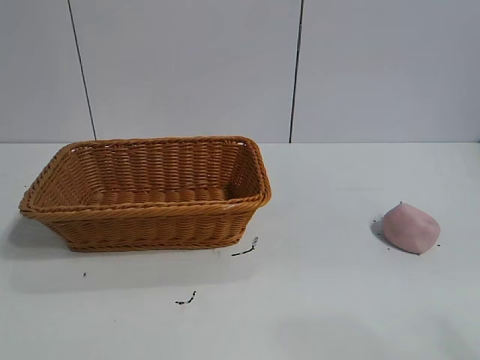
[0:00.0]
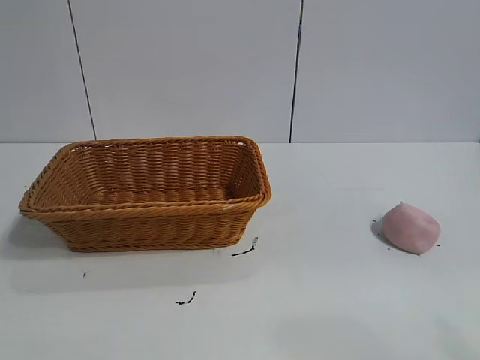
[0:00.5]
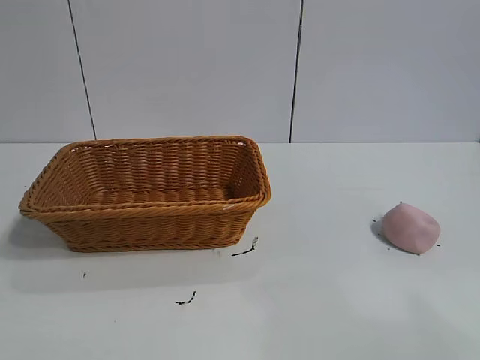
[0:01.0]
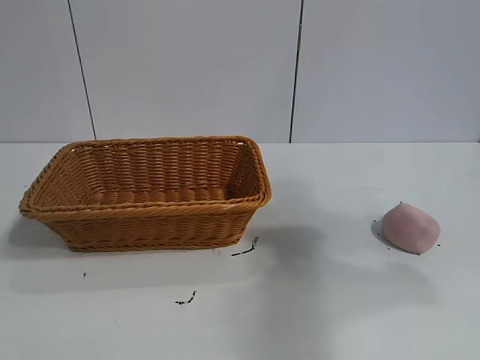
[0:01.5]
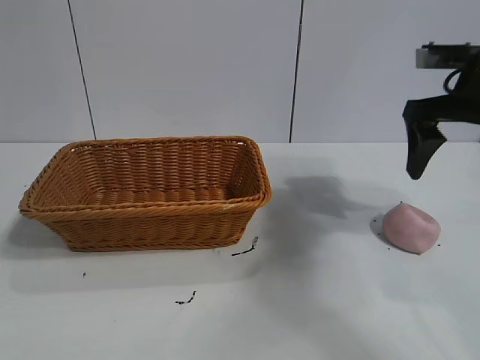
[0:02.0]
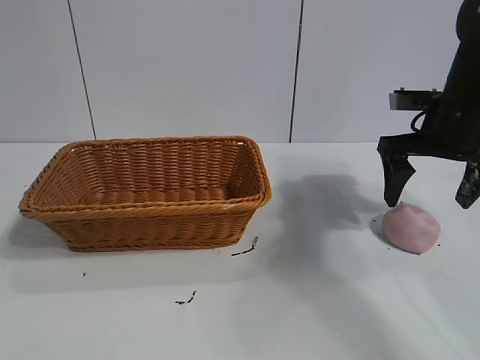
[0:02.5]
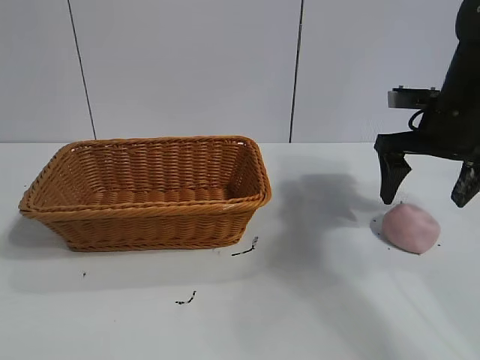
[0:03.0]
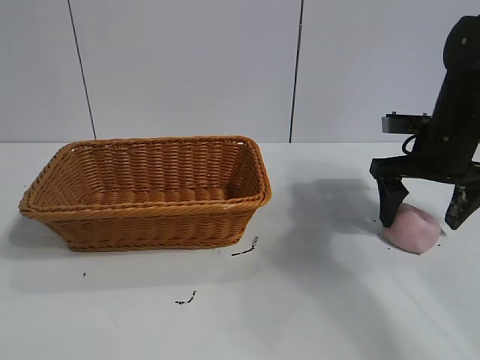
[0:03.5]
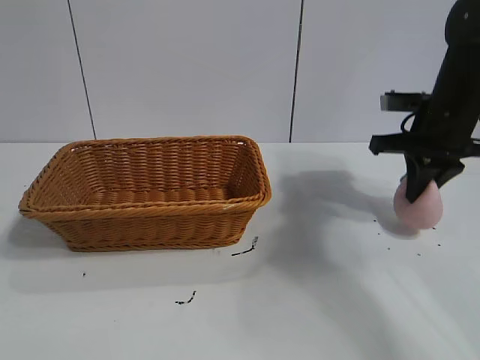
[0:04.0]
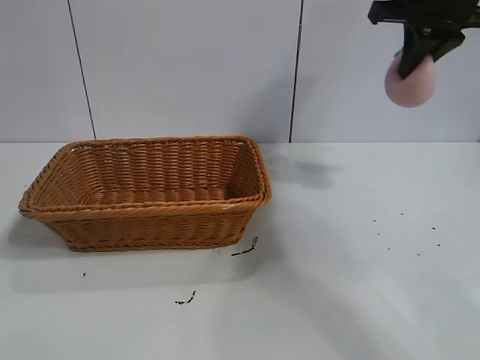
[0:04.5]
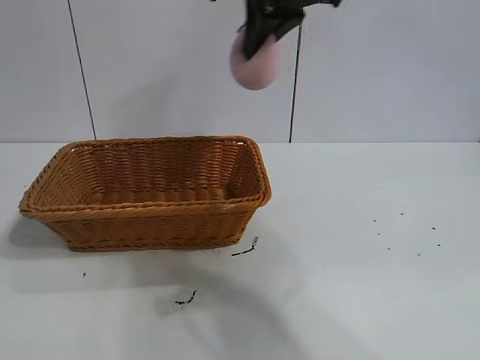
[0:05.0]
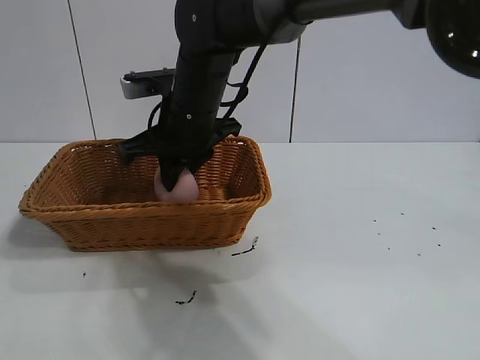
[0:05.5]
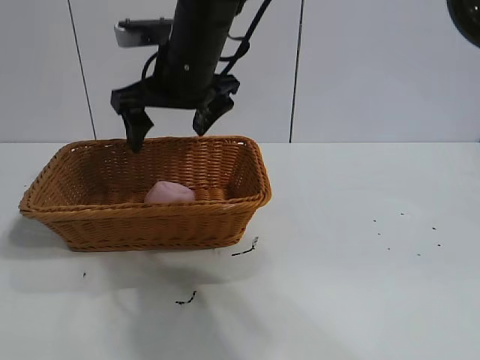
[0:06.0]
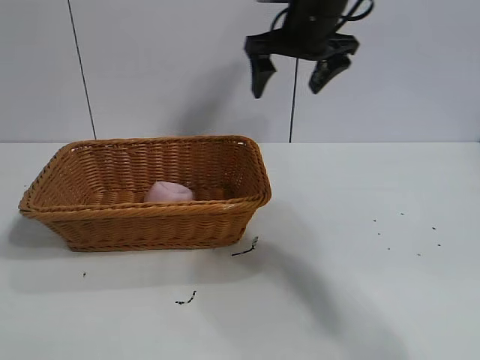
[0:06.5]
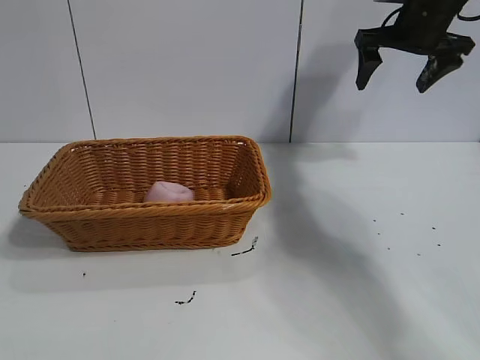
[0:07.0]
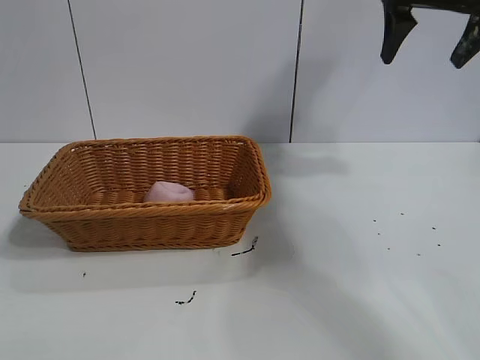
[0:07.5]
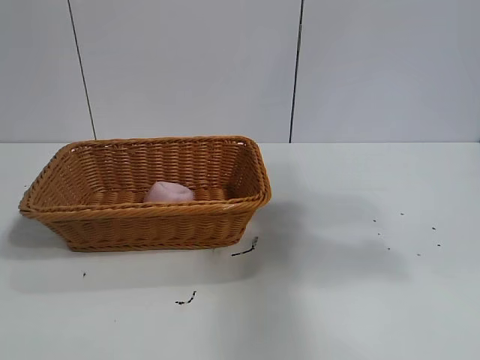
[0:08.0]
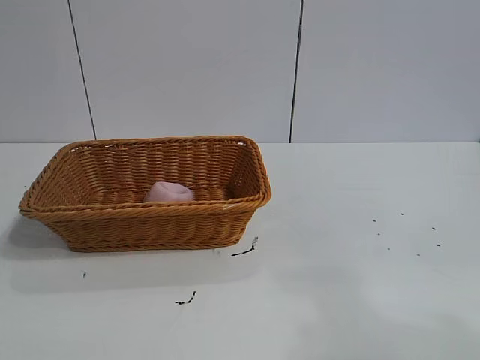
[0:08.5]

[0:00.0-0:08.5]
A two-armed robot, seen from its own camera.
Task of the whole recording: pick up the peach and put it into the basket.
Step, 0:01.0 to 0:03.5: Grasp the peach with right gripper.
Step, 0:04.0 to 0:05.5: Place the peach in the basket with right gripper.

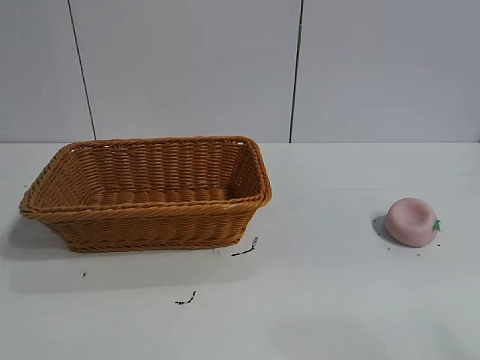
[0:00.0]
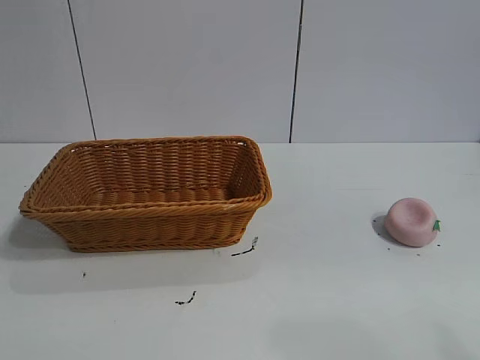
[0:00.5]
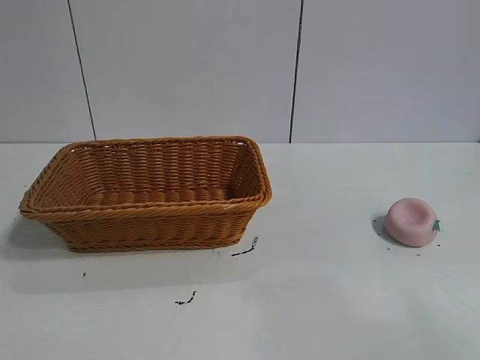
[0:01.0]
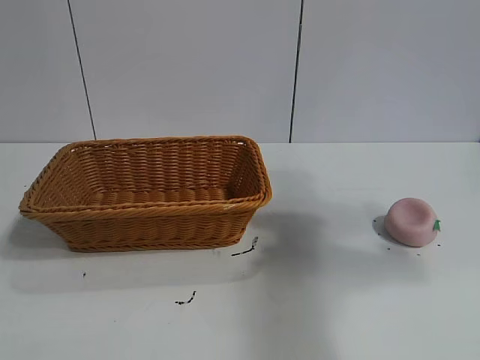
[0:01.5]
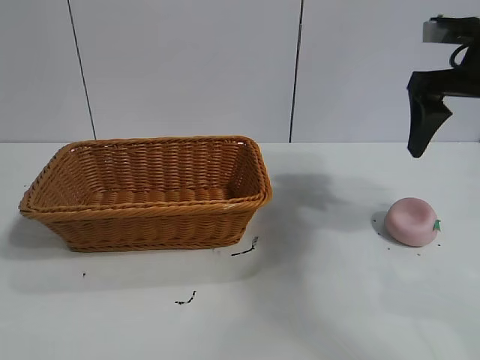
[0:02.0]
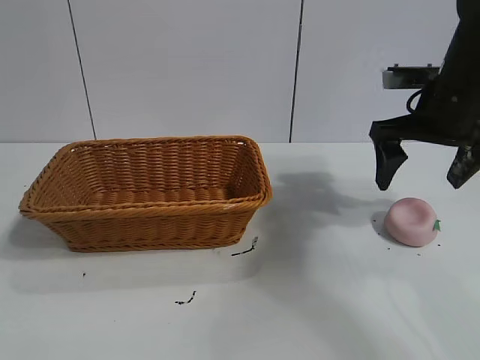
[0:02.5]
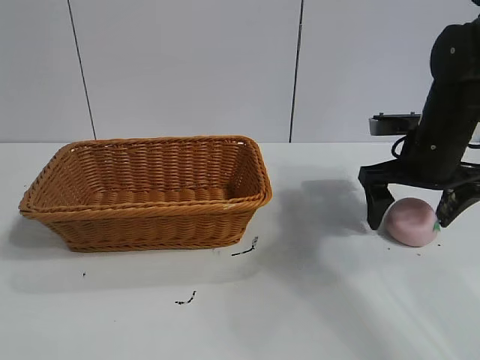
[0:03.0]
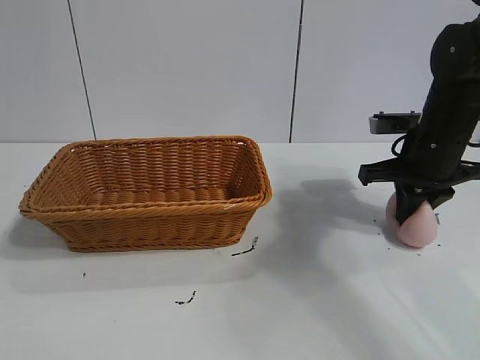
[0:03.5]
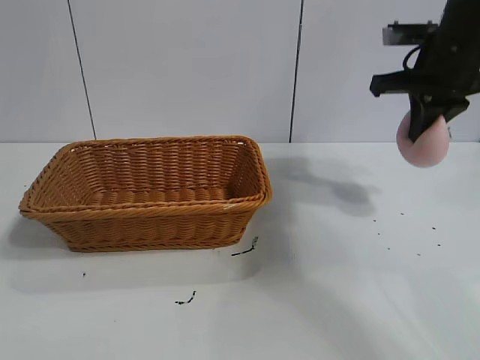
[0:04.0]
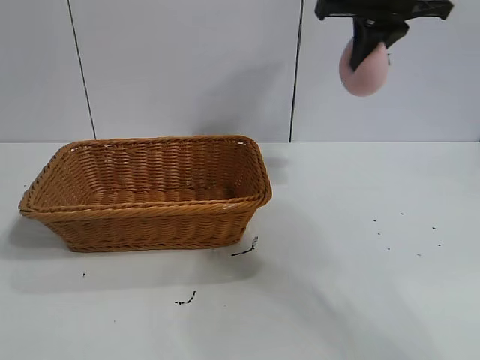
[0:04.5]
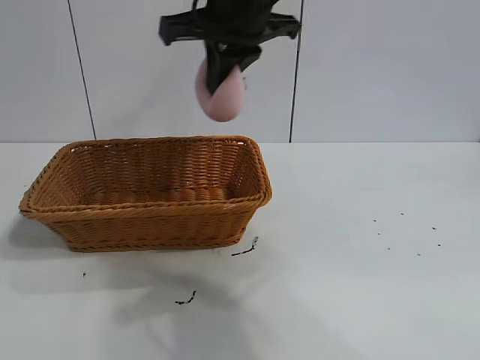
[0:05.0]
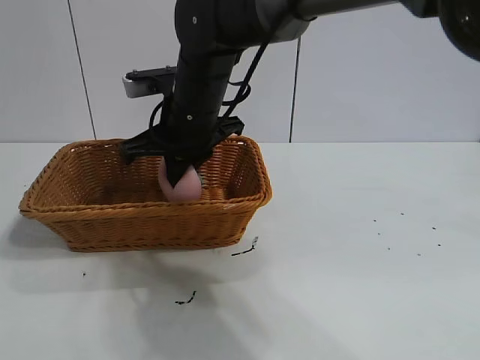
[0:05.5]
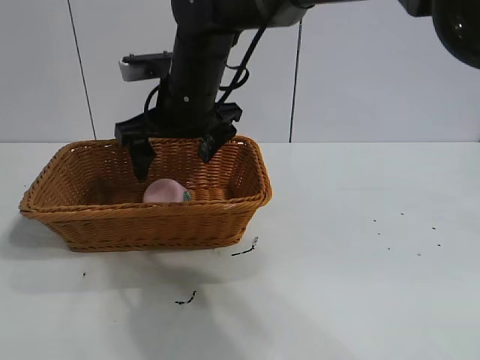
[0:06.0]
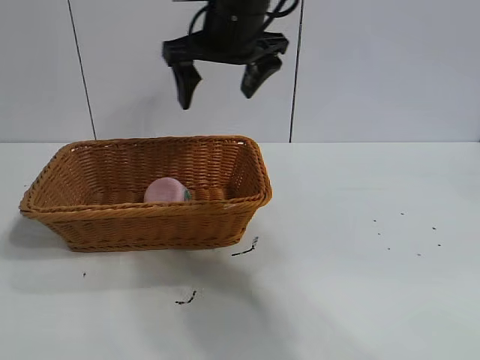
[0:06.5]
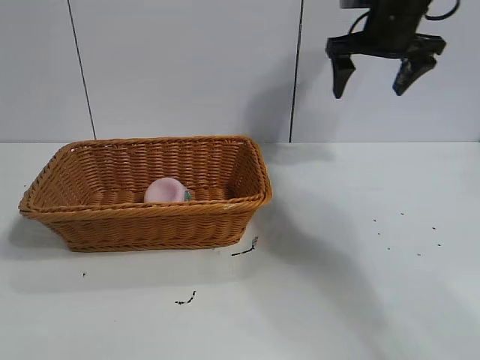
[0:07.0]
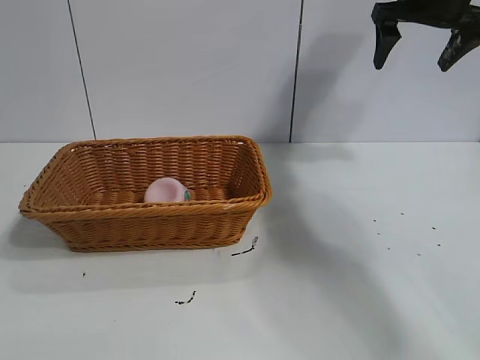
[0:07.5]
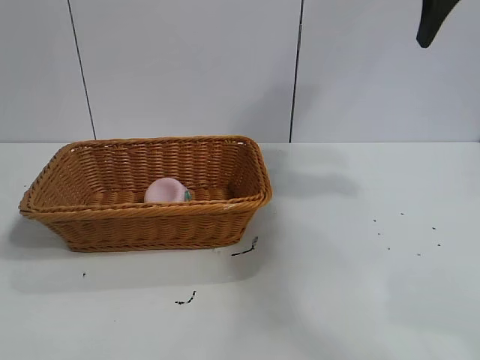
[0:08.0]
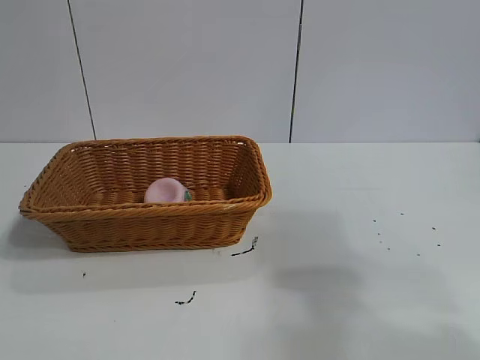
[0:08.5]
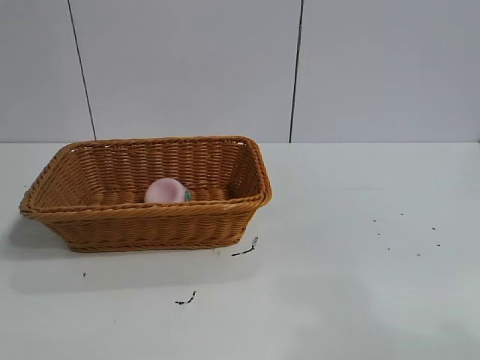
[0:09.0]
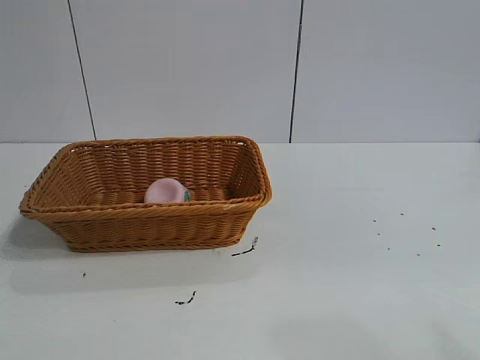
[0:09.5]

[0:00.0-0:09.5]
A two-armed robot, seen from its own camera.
Task of the whole recording: pick up the peach and put it into the basket.
Step, 0:01.0 to 0:03.5: Grasp the peach with right gripper.
Step, 0:04.0 to 0:05.5: Place the peach in the basket with right gripper.

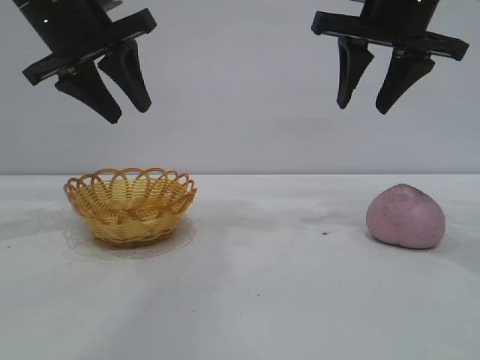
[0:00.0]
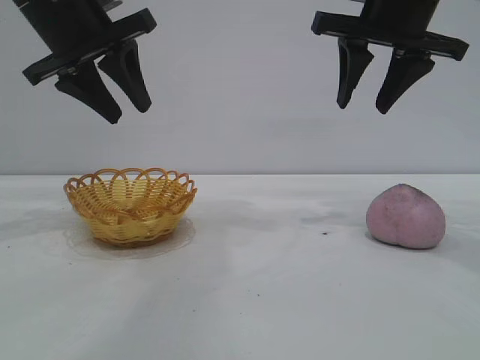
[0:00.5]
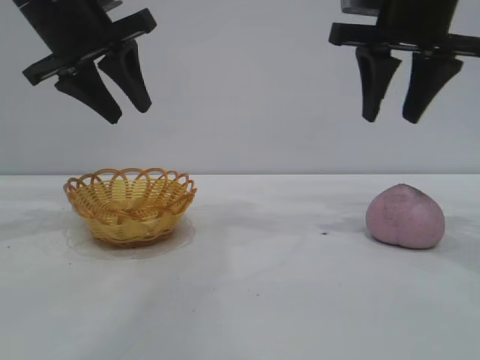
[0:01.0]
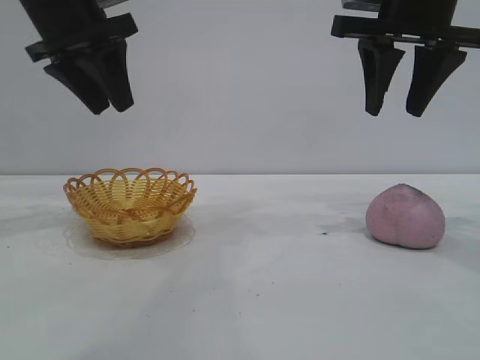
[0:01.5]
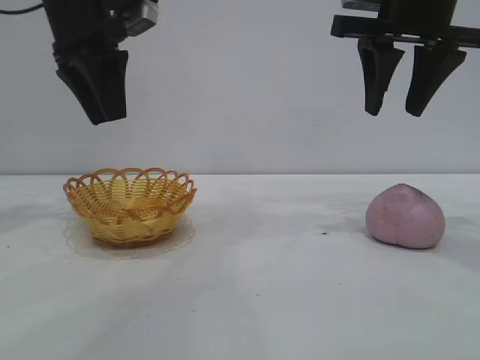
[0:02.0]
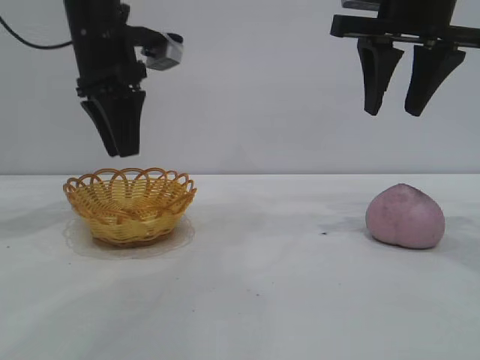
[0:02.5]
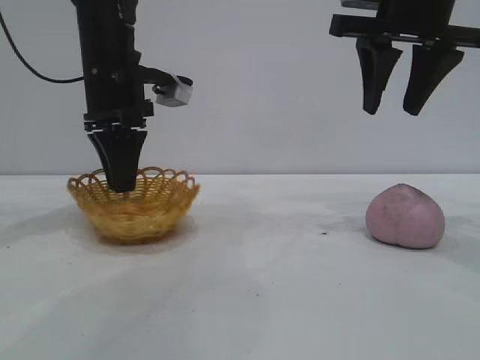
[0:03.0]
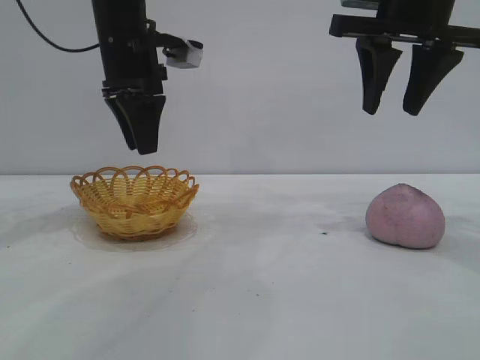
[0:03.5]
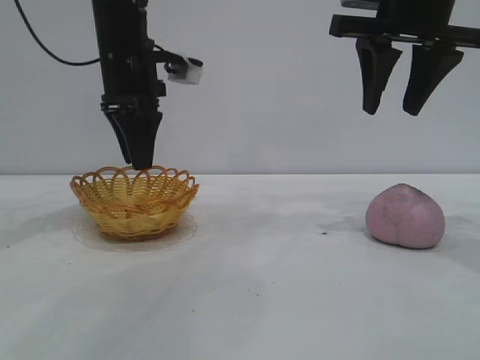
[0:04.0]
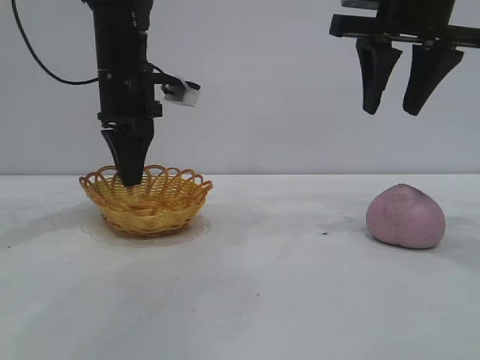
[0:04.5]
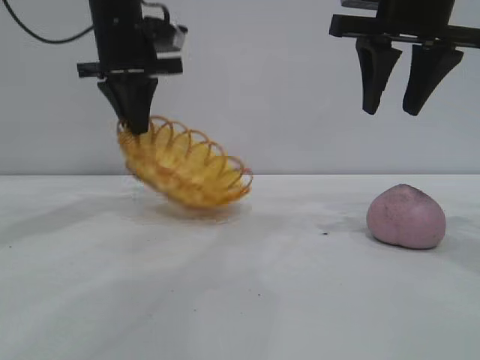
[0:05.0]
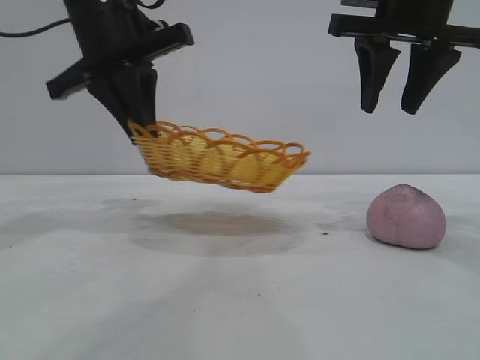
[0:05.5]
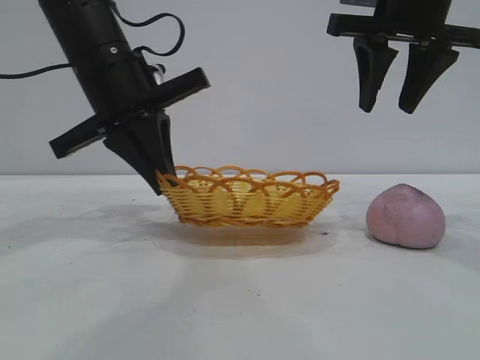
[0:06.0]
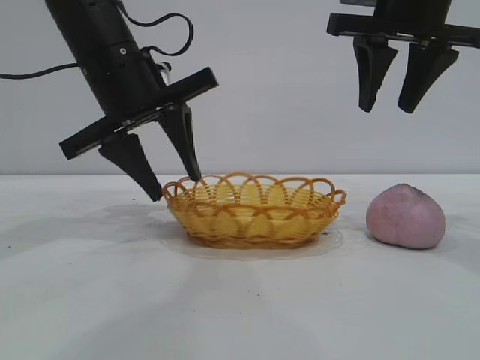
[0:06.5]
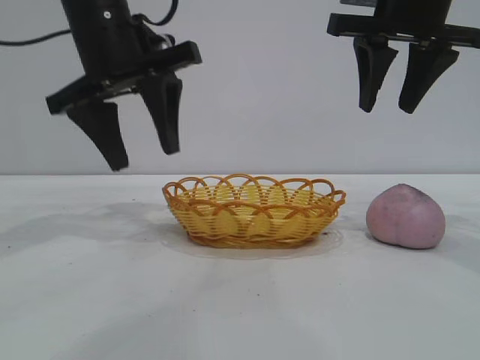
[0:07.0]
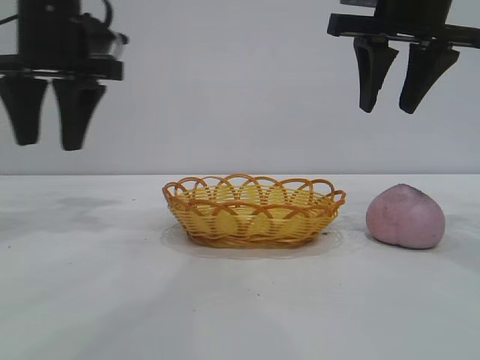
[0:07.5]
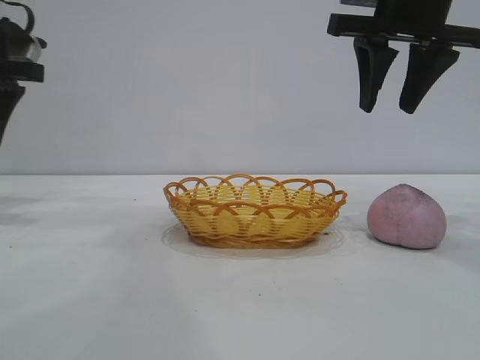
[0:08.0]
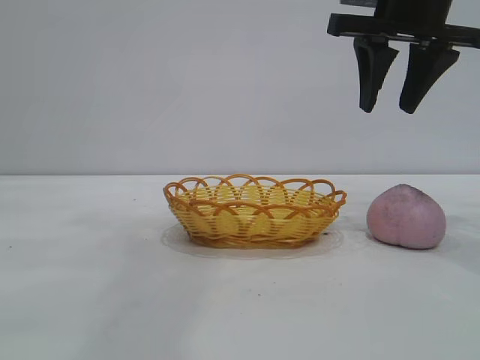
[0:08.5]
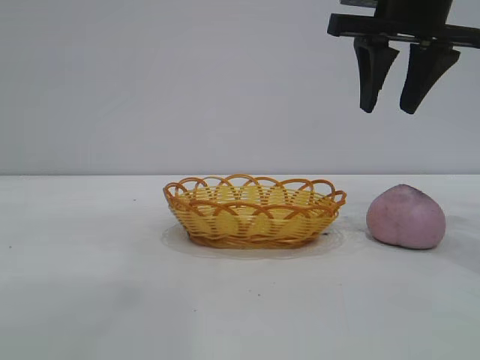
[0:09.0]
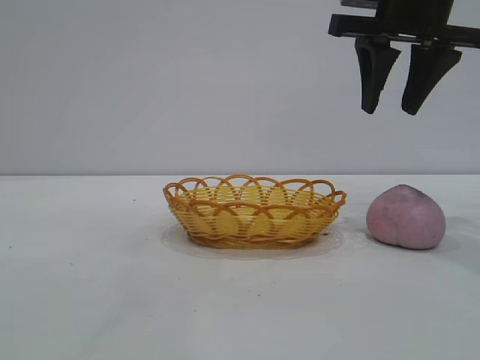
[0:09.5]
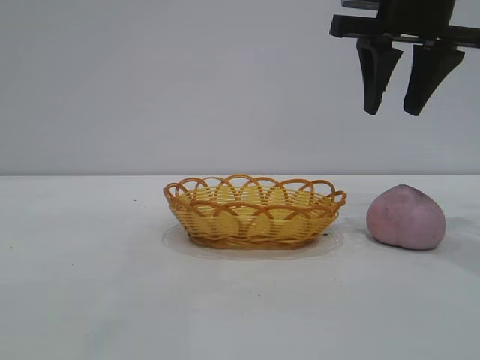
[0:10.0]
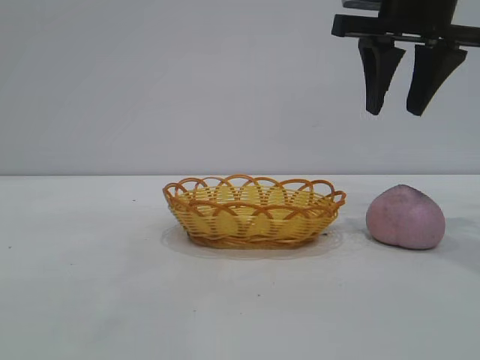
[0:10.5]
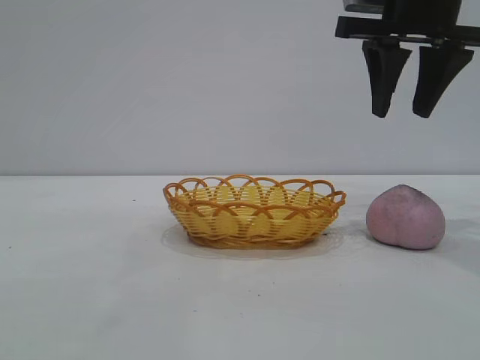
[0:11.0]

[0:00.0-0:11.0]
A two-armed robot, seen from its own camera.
Task of the whole recording: pick up the peach and put it into the basket.
Step, 0:00.0 to 0:07.0: Move the basket to the center of view.
